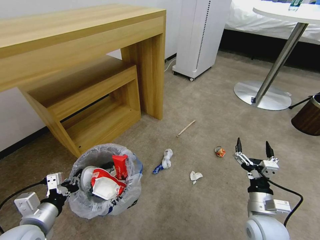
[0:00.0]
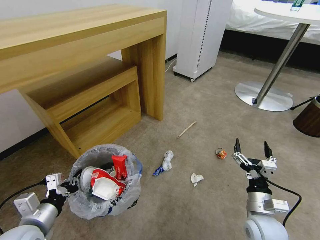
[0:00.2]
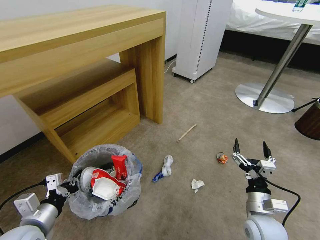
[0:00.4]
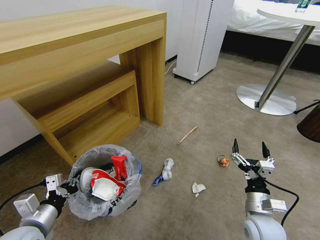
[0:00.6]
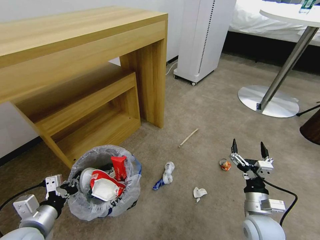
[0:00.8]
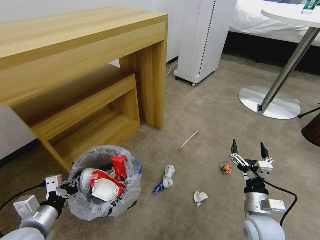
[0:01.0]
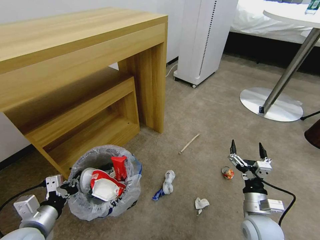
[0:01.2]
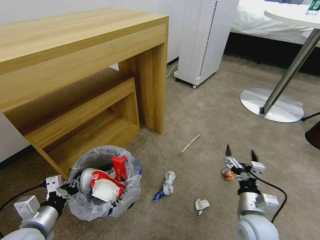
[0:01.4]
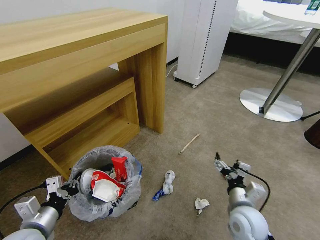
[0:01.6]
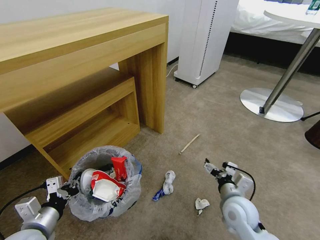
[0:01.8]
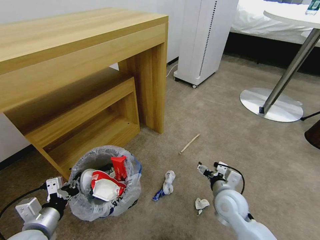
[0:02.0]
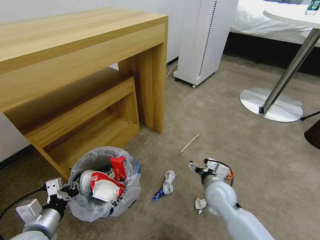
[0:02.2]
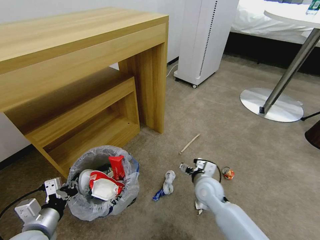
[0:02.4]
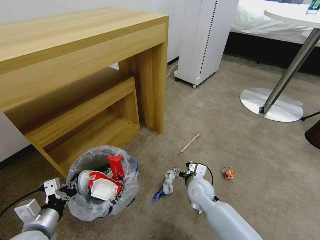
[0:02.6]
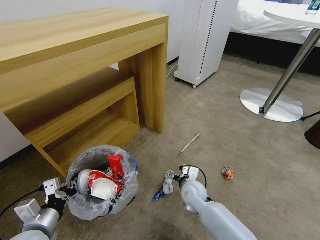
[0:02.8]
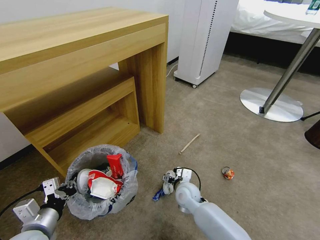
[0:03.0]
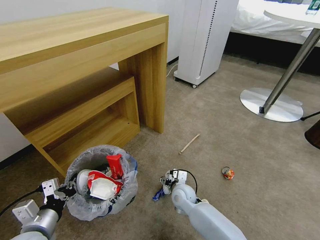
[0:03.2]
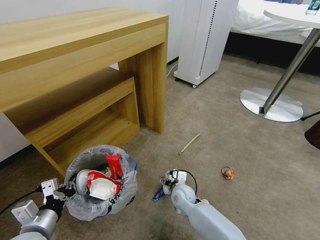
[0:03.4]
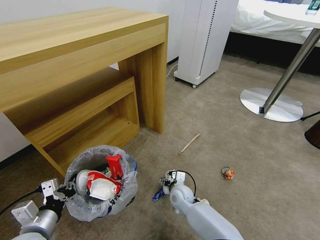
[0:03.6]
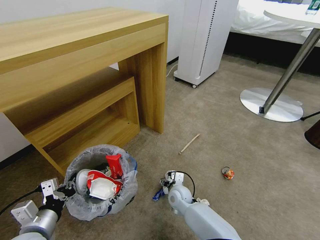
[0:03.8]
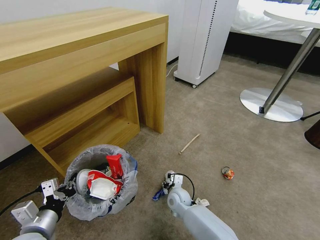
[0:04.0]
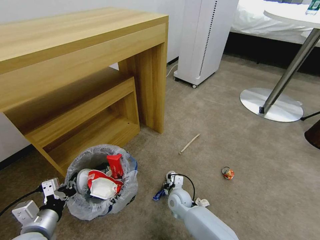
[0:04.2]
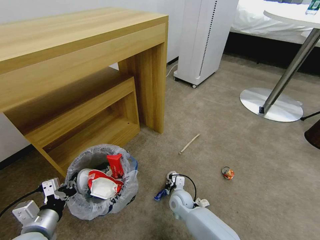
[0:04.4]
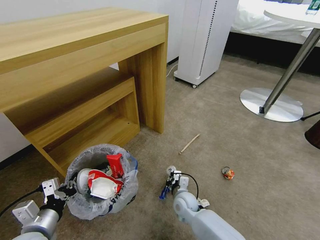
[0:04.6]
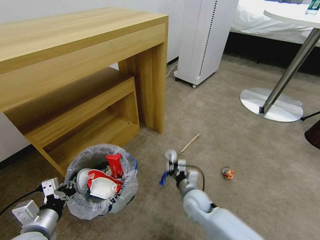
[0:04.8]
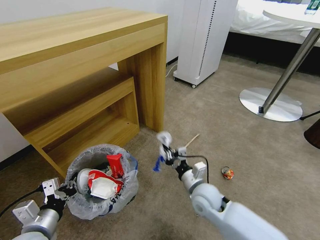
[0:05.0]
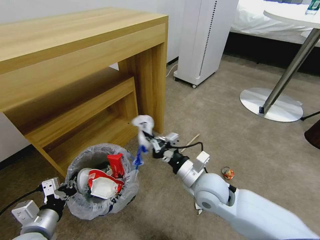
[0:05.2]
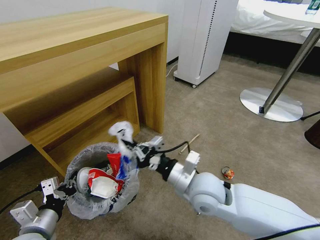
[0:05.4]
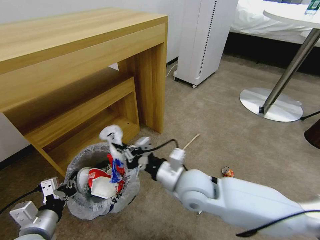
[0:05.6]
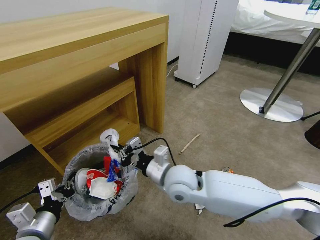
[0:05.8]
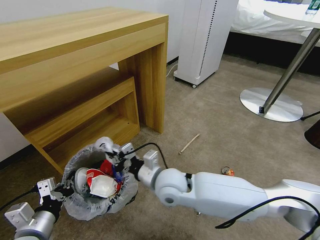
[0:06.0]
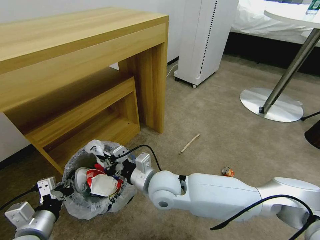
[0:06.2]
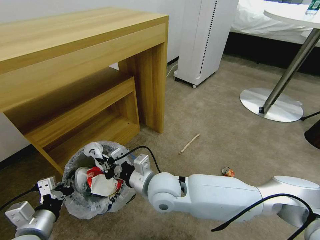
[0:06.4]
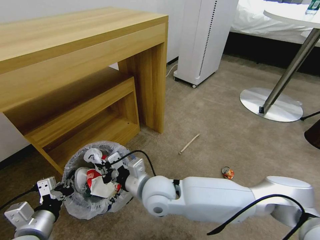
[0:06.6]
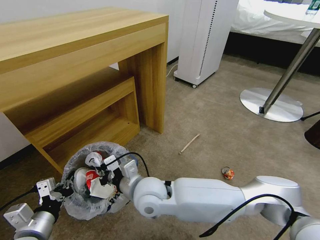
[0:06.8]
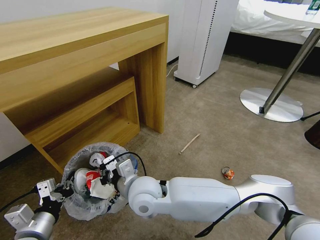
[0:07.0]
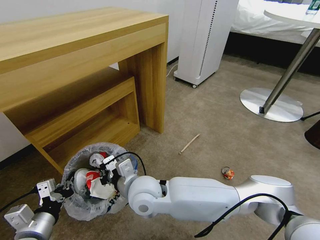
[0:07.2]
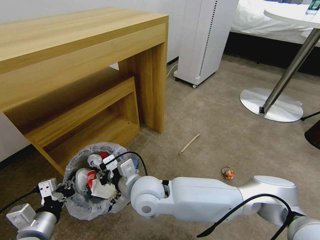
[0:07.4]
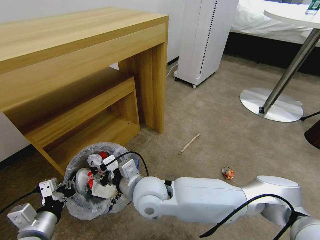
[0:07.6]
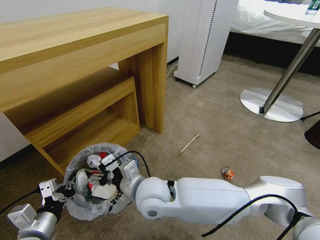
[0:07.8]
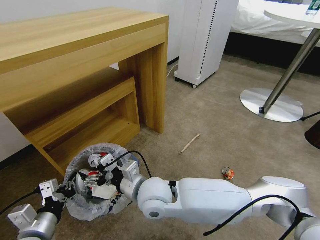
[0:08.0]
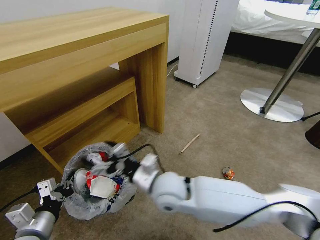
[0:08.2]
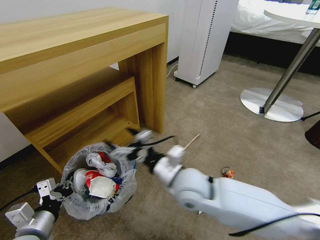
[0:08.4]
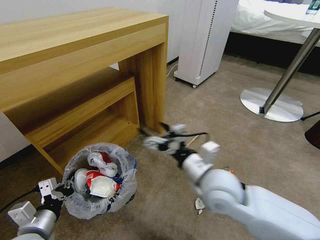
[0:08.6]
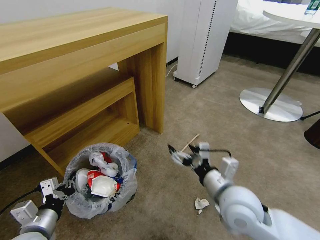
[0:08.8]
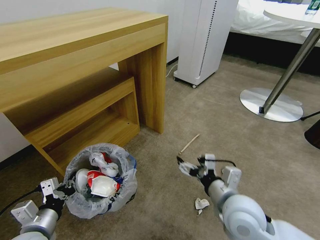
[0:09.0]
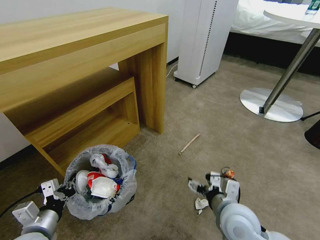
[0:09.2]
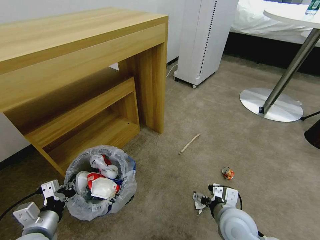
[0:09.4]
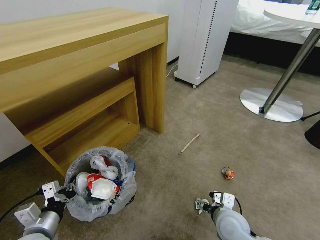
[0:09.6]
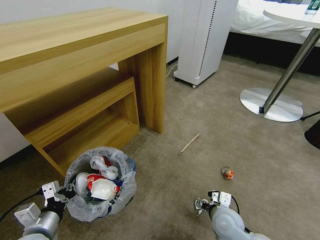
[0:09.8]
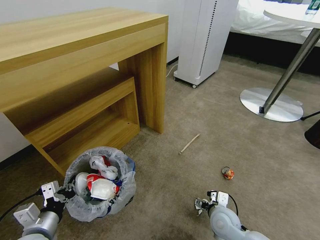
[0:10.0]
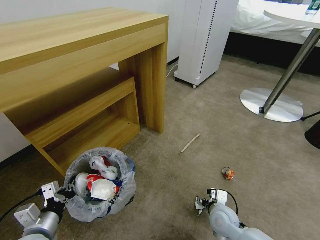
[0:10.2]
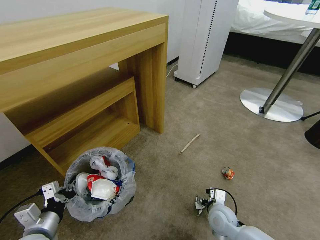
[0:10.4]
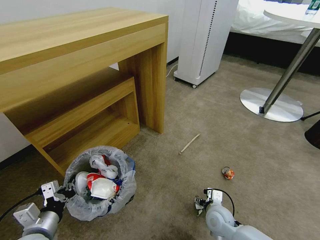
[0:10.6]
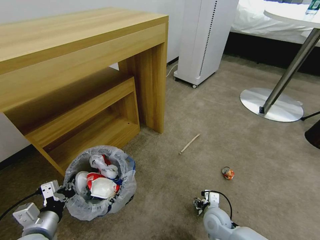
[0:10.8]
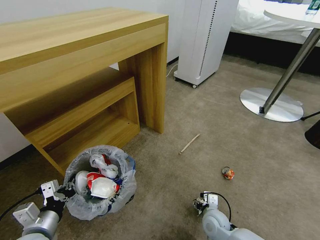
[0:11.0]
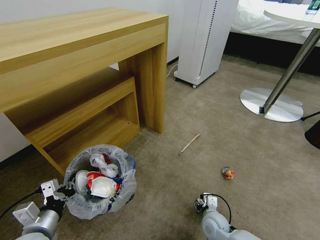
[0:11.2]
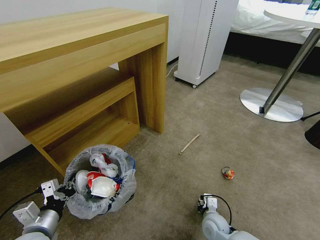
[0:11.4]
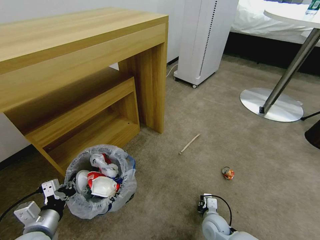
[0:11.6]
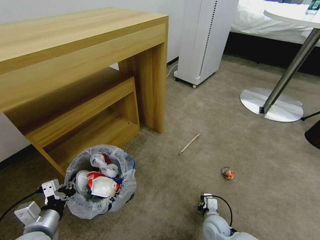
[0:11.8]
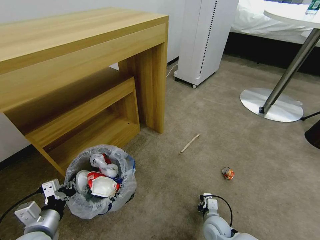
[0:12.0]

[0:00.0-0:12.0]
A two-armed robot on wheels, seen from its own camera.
Task of the whole recording: Pick up the trash bin and place the garbage on the floor into it.
0:01.6 to 0:03.0: The right gripper moves to the left, forward and downward, some 20 cm.
0:03.0 to 0:04.4: The right gripper goes roughly 5 cm downward, and closes up.
0:04.4 to 0:06.0: The right gripper goes about 25 cm upward.
0:06.0 to 0:07.6: The right gripper is displaced to the left by about 5 cm, and opens its fingers.
0:07.6 to 0:09.0: The right gripper moves to the right, about 25 cm, and opens up.
0:09.0 to 0:10.4: The right gripper goes roughly 20 cm downward.
0:10.4 to 0:12.0: The right gripper moves downward, about 5 cm, and closes.

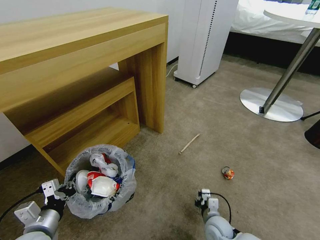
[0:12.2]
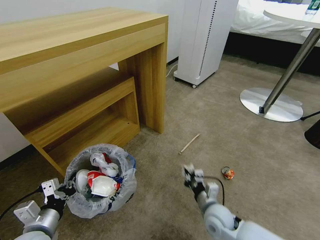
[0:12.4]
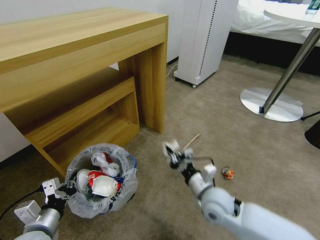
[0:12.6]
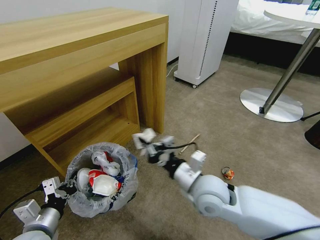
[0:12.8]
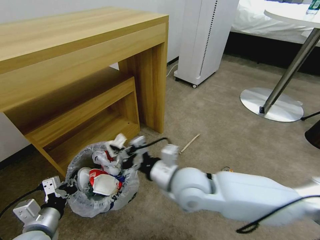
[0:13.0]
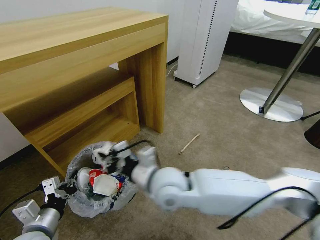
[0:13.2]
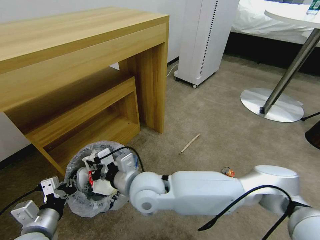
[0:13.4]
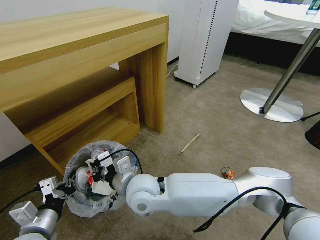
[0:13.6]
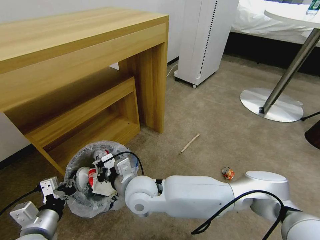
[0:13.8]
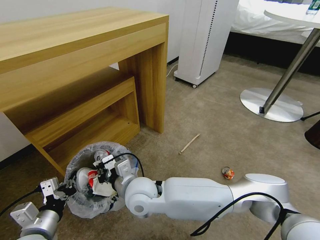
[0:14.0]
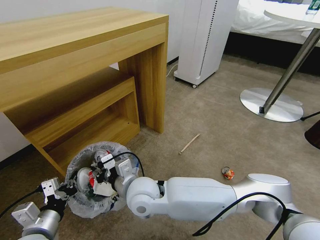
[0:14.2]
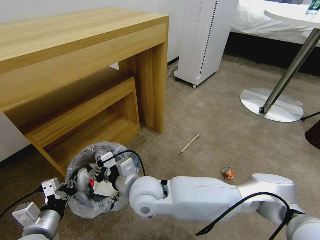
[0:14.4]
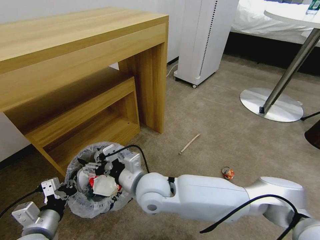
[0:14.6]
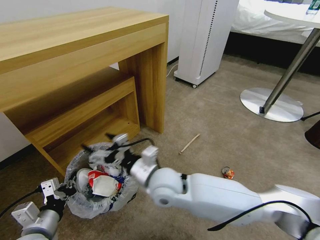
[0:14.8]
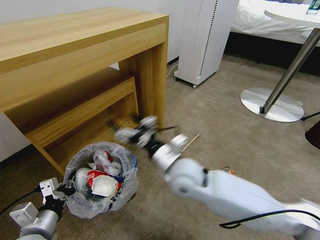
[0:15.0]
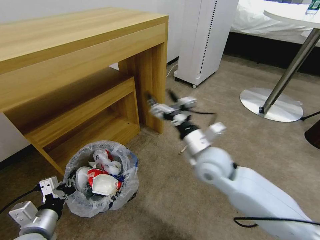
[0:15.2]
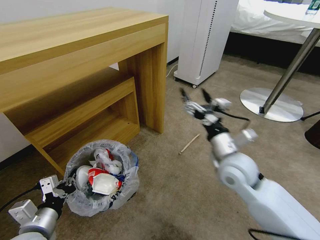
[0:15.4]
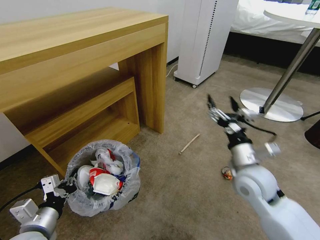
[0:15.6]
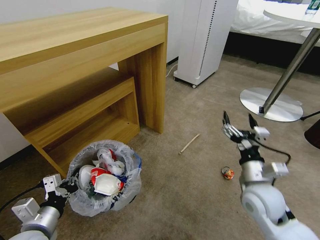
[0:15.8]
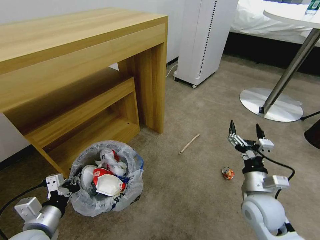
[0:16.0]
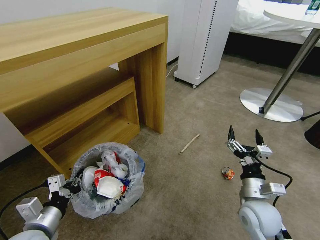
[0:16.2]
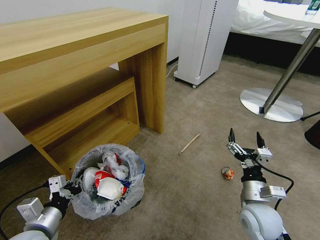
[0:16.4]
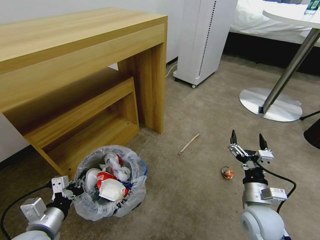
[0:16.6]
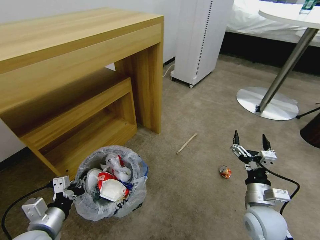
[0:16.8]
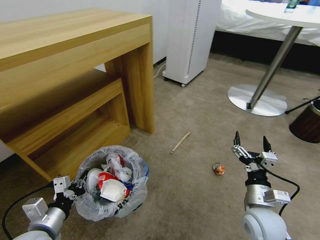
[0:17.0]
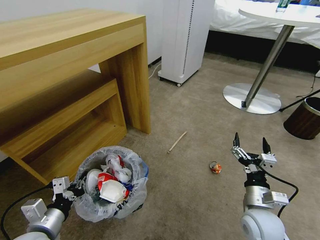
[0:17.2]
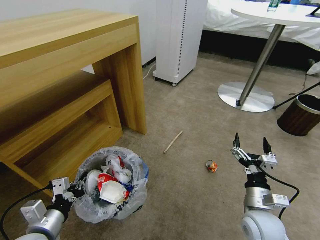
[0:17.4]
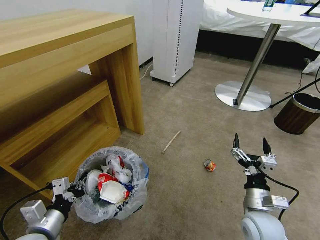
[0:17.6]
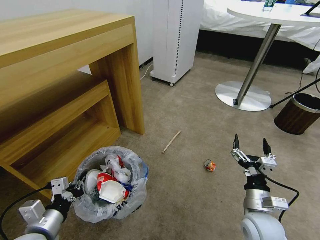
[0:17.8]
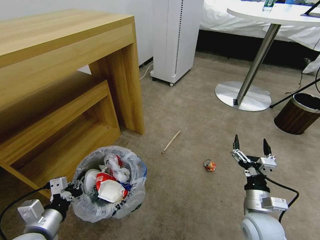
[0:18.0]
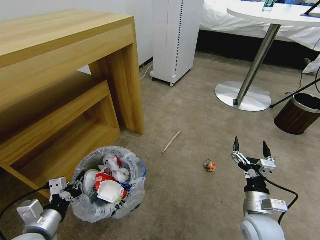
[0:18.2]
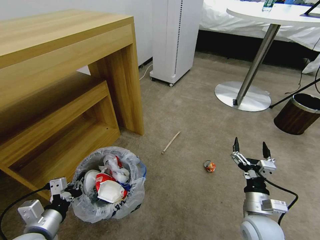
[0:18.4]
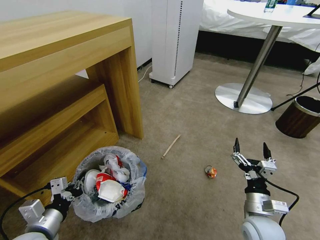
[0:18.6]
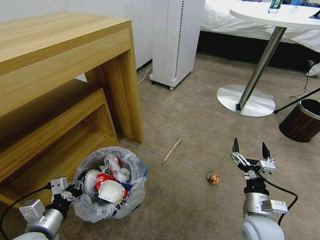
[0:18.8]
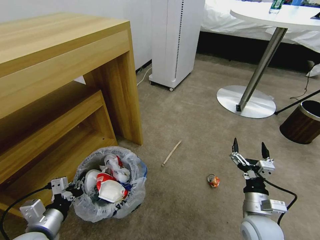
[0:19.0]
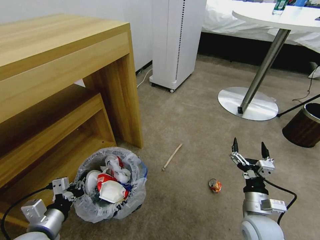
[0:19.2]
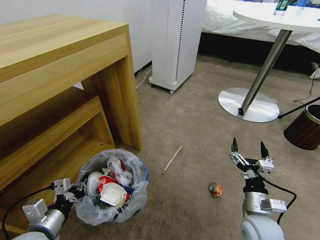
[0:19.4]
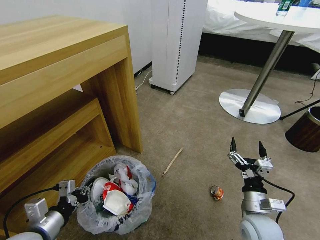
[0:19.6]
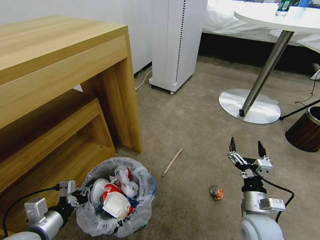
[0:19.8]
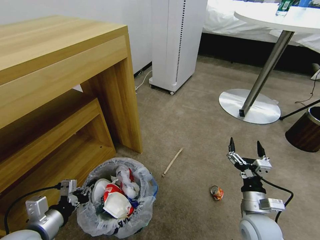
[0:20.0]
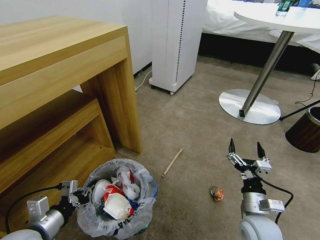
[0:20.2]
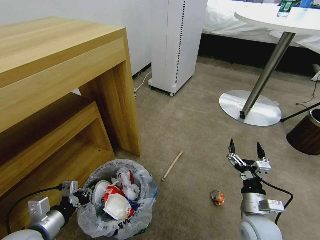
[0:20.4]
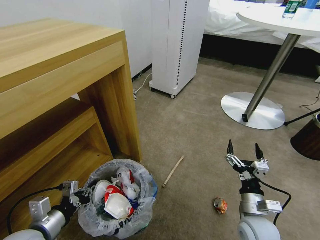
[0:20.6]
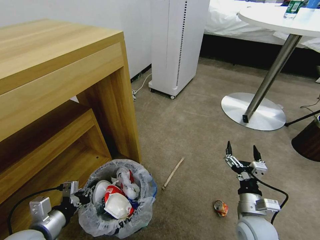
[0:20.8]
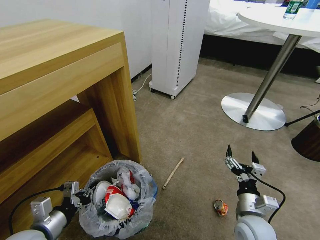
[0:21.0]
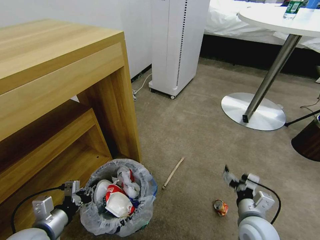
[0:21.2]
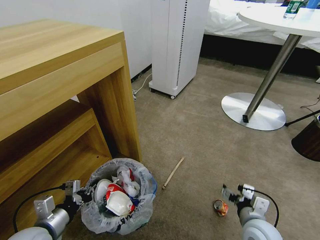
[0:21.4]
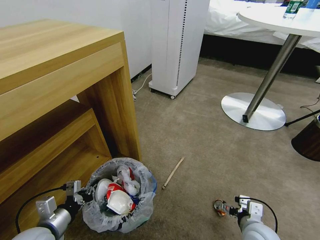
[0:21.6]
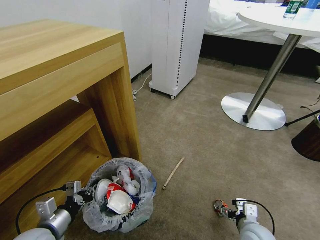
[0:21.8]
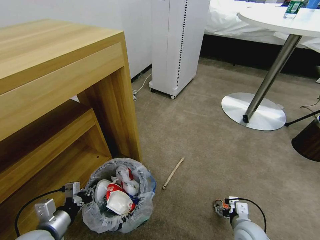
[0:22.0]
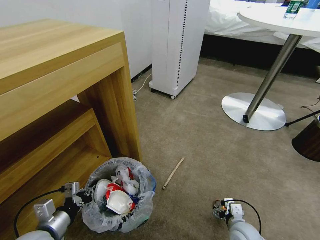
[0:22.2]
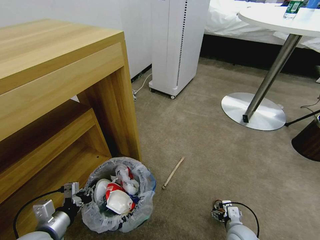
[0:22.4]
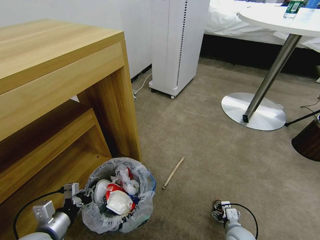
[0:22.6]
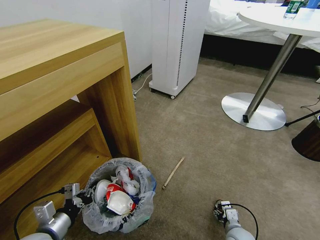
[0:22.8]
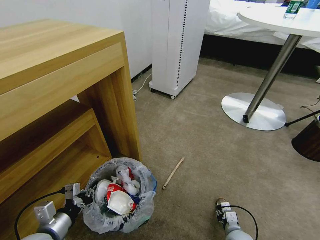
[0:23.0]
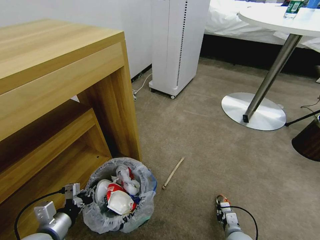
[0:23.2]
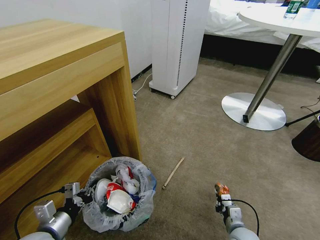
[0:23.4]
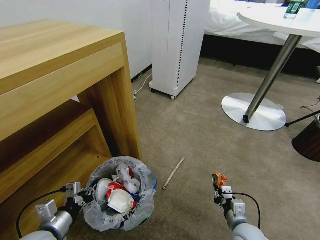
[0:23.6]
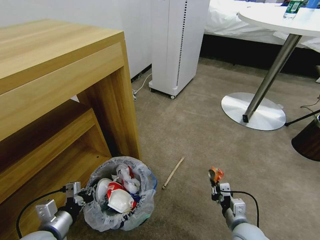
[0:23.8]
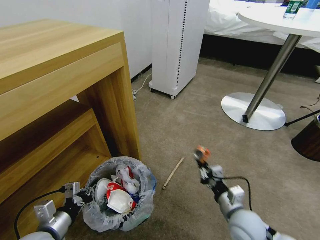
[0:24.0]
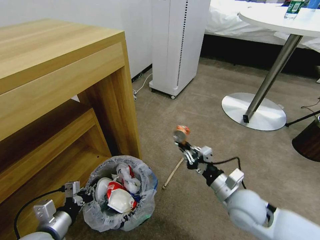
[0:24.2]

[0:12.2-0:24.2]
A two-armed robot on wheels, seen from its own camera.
Task of the whole recording: Pick up the trash bin and place the garbage on the floor into it.
0:12.2 to 0:13.8: The right gripper moves to the left and upward, roughly 35 cm.
0:13.8 to 0:15.2: The right gripper heads to the right, covering roughly 20 cm, and opens its fingers.
0:15.2 to 0:16.6: The right gripper moves to the right, downward and backward, about 20 cm.
0:21.2 to 0:22.6: The right gripper travels downward by about 15 cm.
0:22.6 to 0:24.2: The right gripper is displaced upward by approximately 20 cm, and closes.
